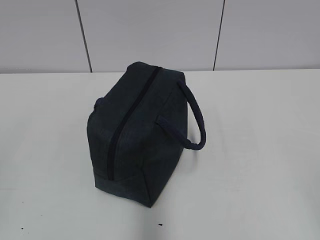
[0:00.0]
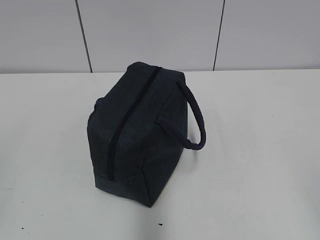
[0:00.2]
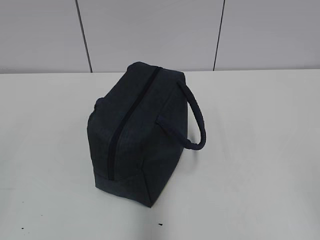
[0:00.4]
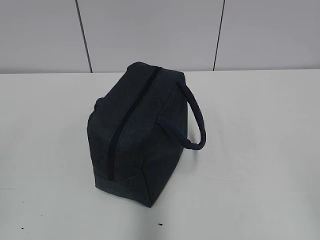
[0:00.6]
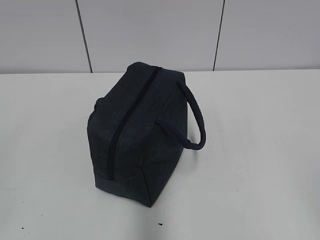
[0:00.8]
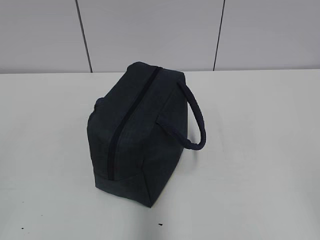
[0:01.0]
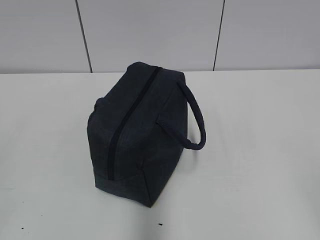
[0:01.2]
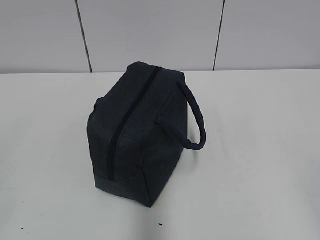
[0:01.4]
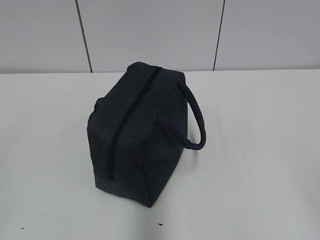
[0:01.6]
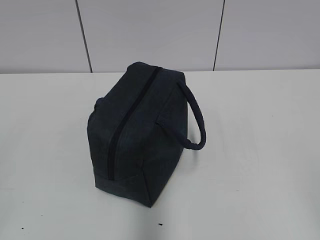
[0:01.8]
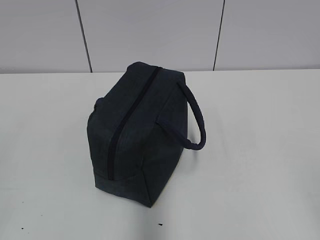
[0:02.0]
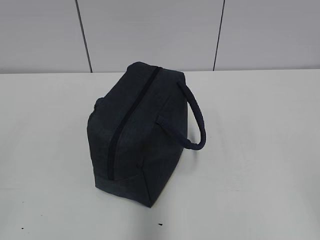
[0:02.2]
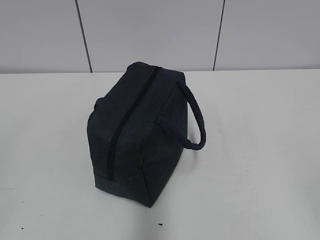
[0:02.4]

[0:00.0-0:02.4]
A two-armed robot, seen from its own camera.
0:01.2 to 0:02.4: Neither gripper changes place.
